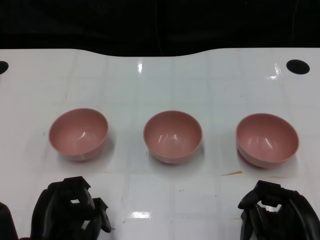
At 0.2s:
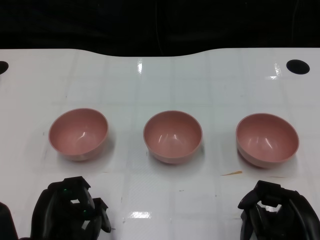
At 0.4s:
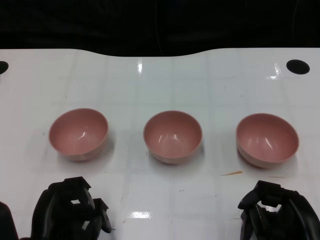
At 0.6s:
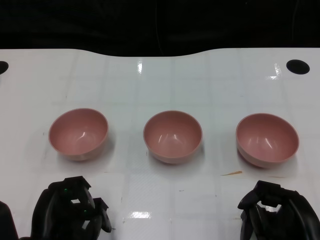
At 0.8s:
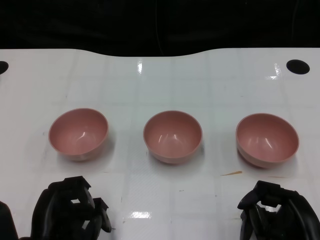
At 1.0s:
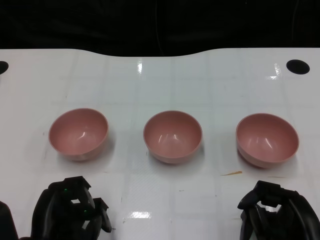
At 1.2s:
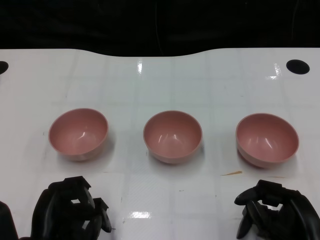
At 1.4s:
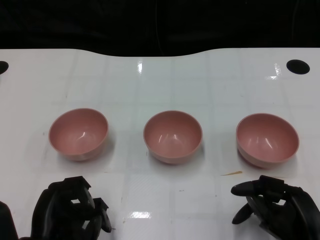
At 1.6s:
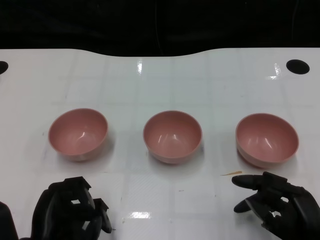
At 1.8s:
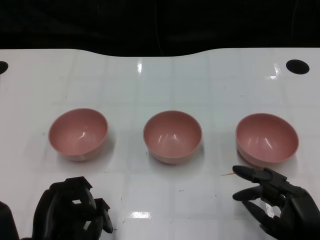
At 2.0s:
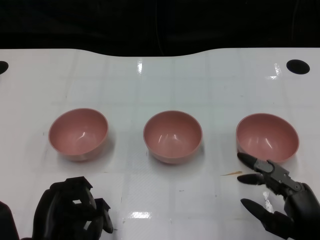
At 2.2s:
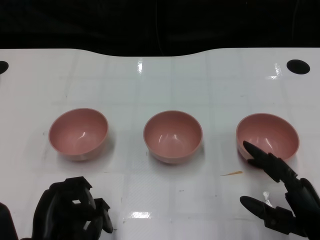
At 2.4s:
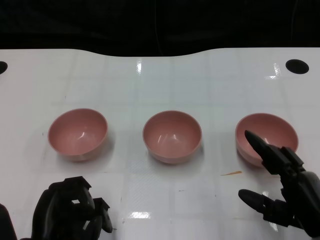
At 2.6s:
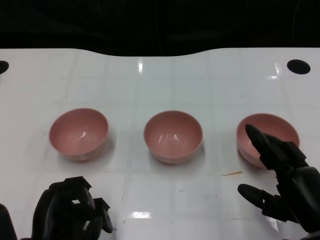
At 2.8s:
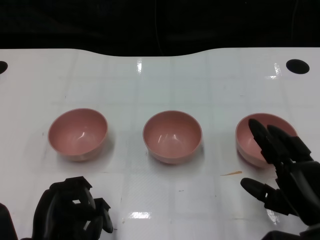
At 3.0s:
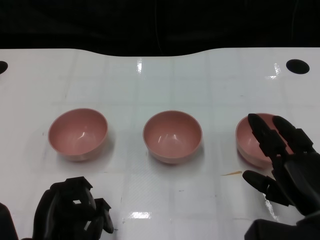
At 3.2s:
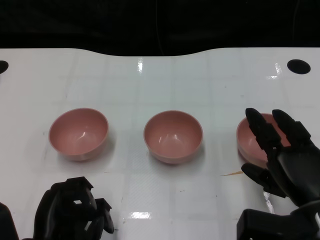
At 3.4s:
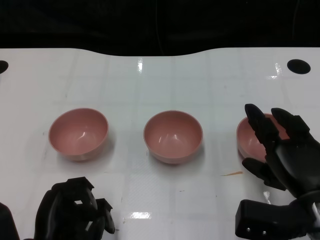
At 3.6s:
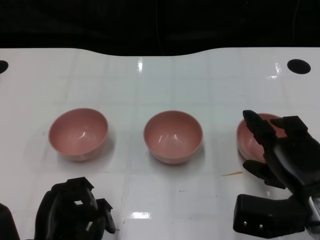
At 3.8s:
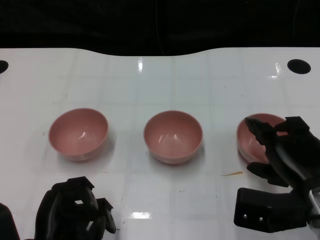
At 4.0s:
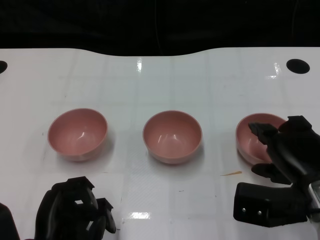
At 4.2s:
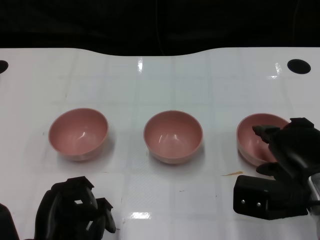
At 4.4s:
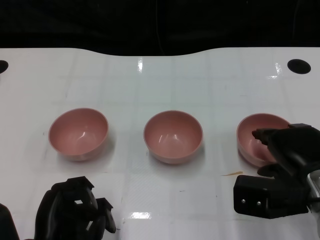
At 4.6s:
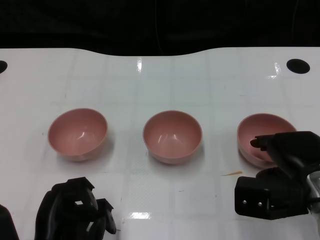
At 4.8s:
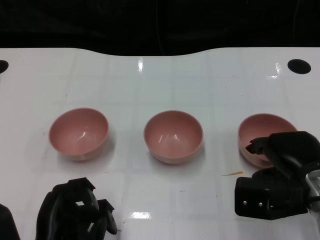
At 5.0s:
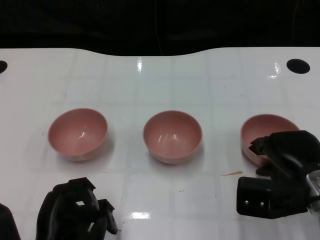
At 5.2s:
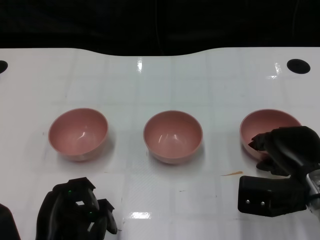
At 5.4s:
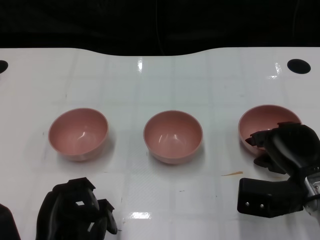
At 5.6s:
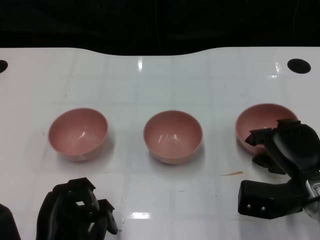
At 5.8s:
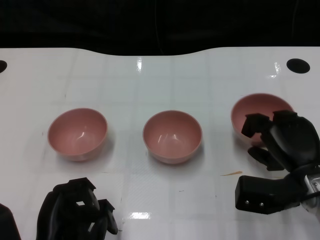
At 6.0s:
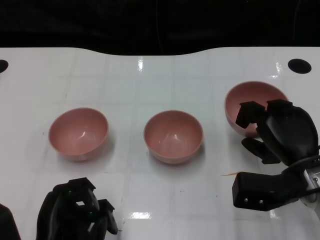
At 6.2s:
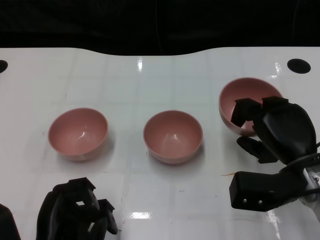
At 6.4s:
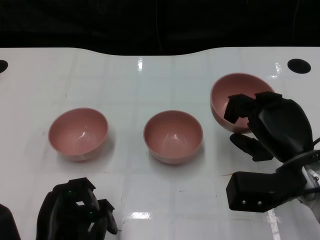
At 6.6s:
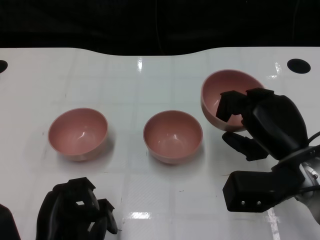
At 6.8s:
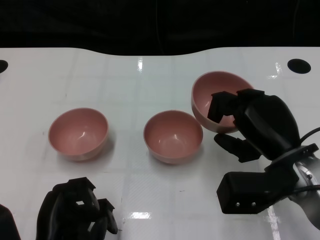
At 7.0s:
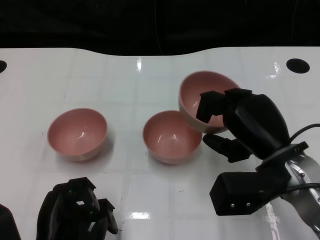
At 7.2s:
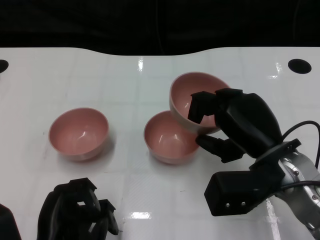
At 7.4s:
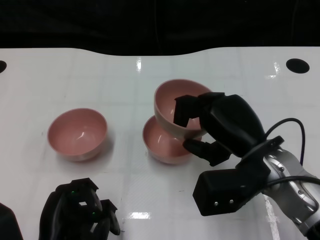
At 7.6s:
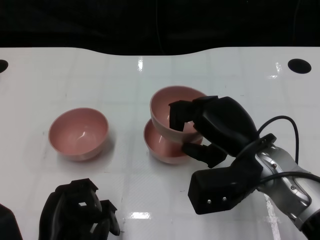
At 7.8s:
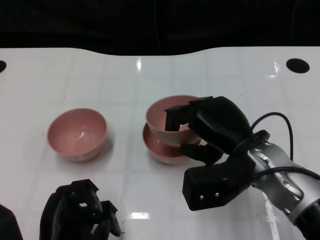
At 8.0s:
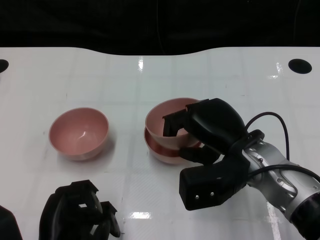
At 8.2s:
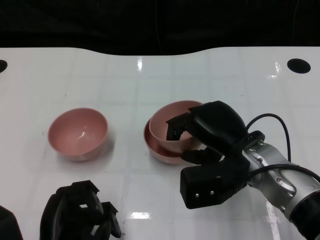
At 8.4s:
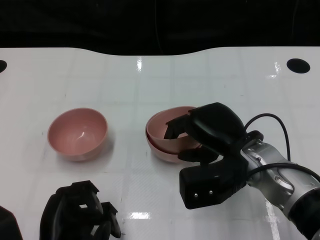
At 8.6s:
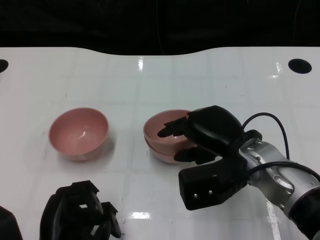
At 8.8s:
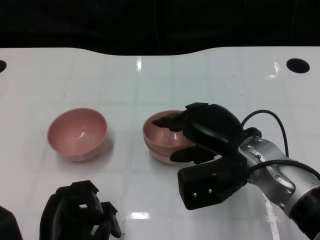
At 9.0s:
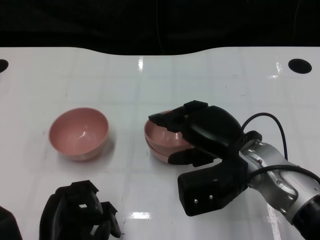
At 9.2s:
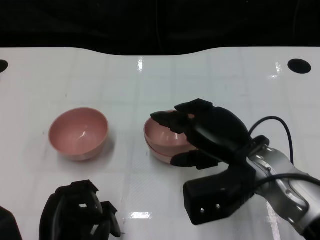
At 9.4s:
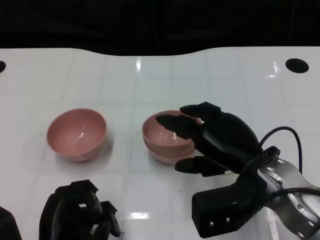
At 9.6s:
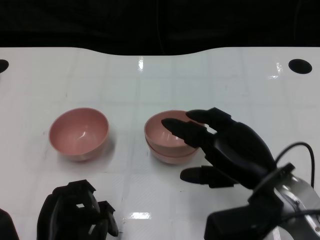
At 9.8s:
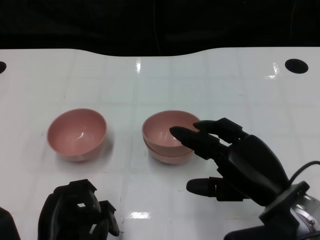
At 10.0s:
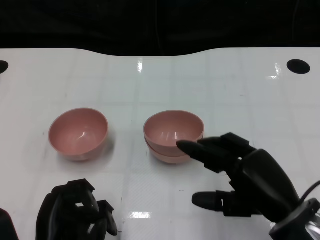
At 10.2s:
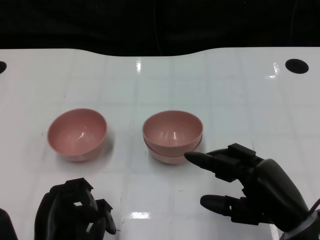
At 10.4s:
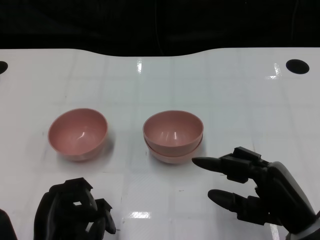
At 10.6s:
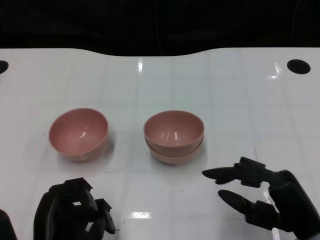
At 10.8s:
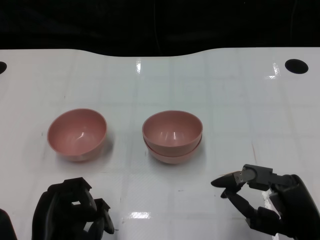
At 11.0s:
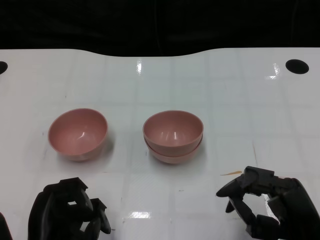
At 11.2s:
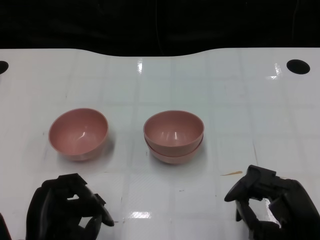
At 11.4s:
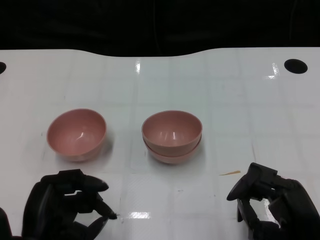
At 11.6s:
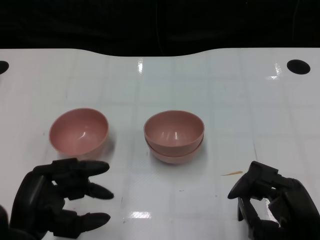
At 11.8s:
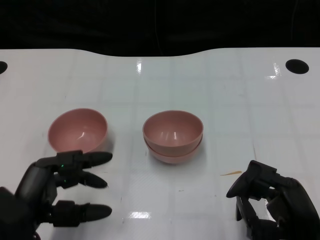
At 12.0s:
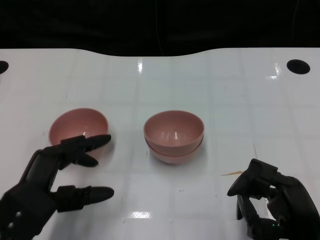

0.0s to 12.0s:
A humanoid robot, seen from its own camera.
Task of the whole recording: Pick up the bowl on one side of the table and place it on top of the middle bowl, then pick up the bowl on the other side of the table and place it on top of the middle bowls.
Step, 1.2s to 5.6s: Grasp the bowl on the right with the right gripper.
Step, 5.8s to 9.8s: Place the bowl on the right onto the bowl in the middle with right gripper.
1.6s to 3.0s: The right hand ends up some 5 cm from where it was.
3.0s to 4.4s: The right hand shifts by approximately 5 cm.
6.0s to 7.6s: The right hand shifts about 5 cm to the left.
7.6s to 9.0s: The hands move only a little.
9.0s to 10.4s: The right hand travels backward and to the right by approximately 15 cm.
10.4s to 12.0s: The left hand shifts by about 5 cm.

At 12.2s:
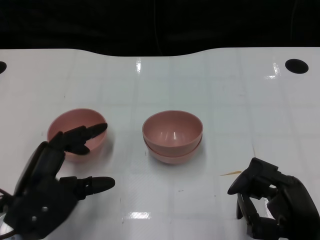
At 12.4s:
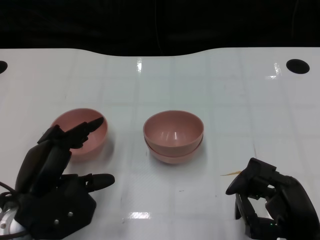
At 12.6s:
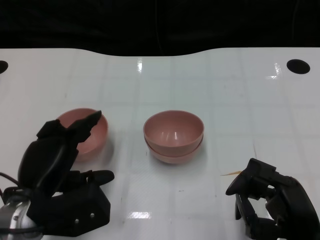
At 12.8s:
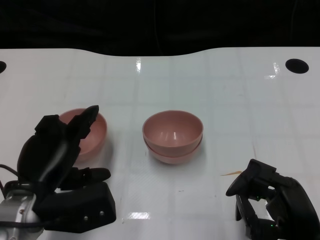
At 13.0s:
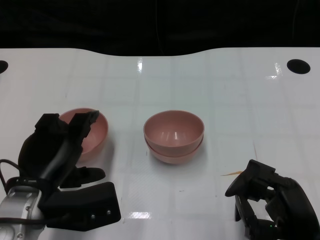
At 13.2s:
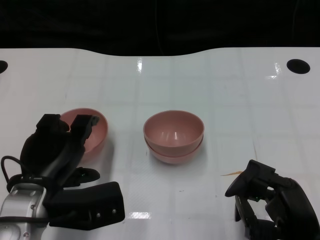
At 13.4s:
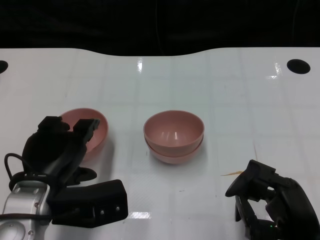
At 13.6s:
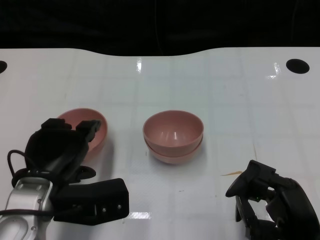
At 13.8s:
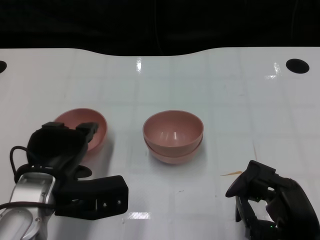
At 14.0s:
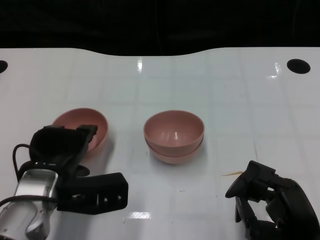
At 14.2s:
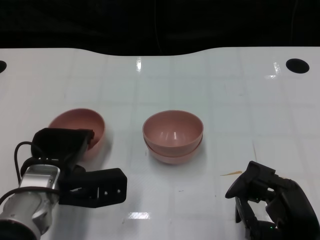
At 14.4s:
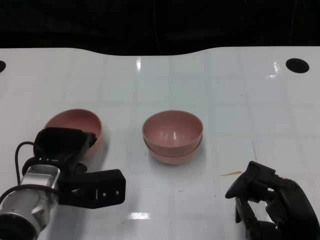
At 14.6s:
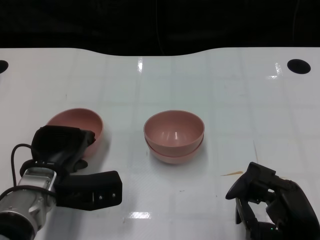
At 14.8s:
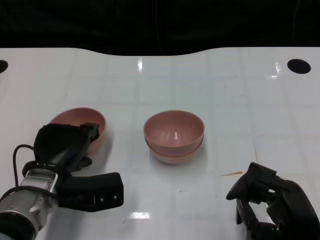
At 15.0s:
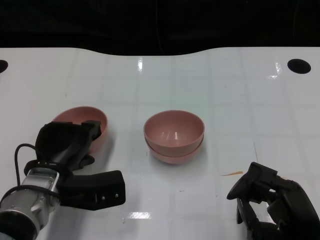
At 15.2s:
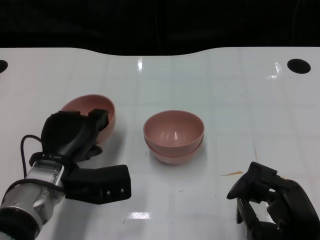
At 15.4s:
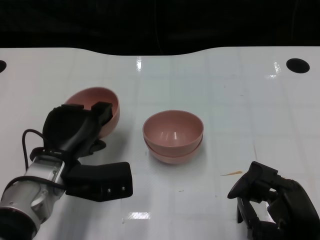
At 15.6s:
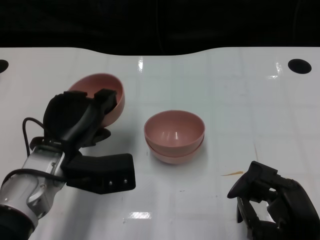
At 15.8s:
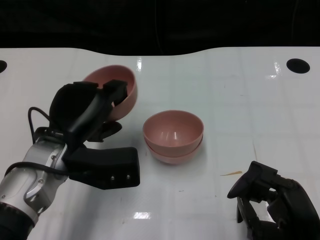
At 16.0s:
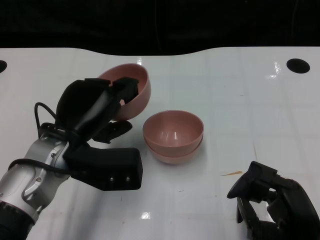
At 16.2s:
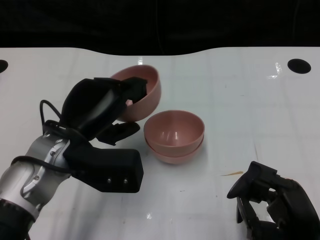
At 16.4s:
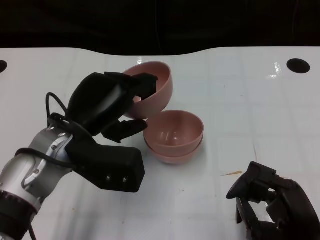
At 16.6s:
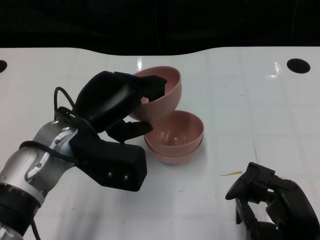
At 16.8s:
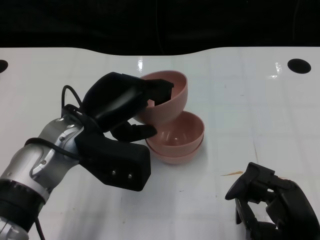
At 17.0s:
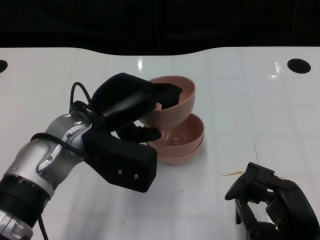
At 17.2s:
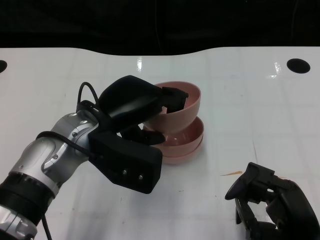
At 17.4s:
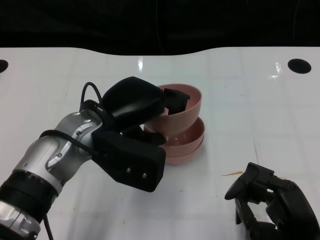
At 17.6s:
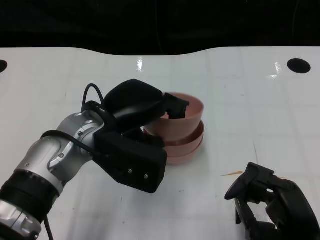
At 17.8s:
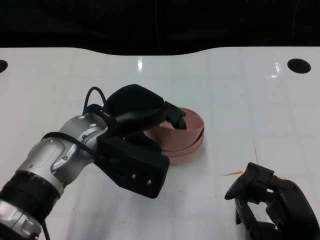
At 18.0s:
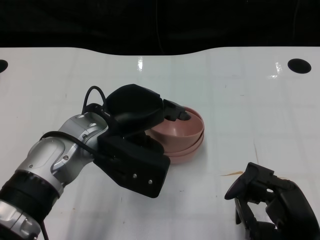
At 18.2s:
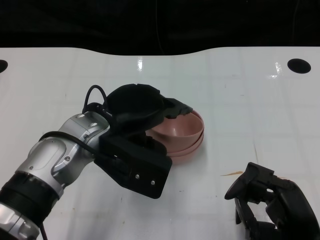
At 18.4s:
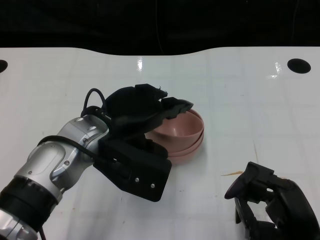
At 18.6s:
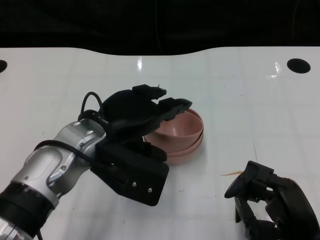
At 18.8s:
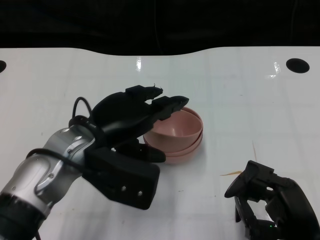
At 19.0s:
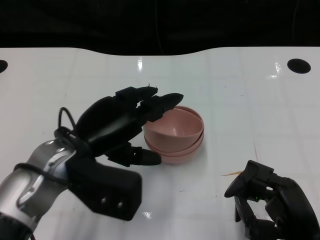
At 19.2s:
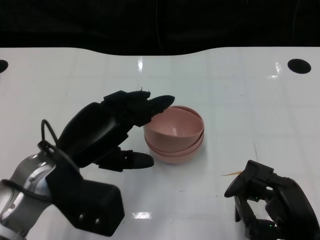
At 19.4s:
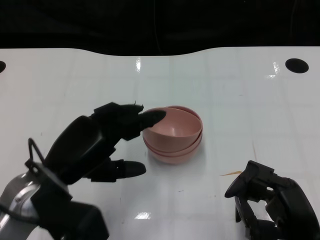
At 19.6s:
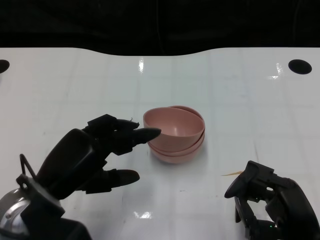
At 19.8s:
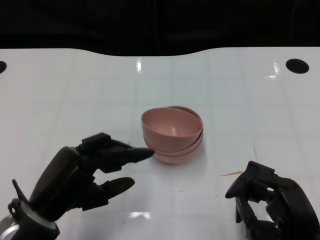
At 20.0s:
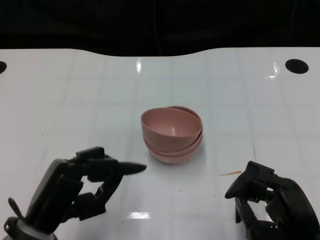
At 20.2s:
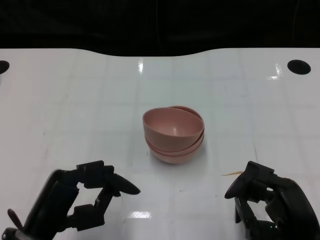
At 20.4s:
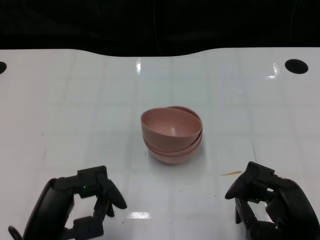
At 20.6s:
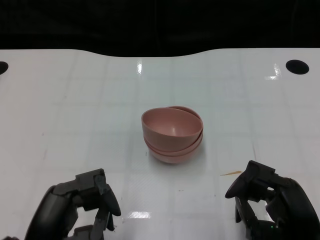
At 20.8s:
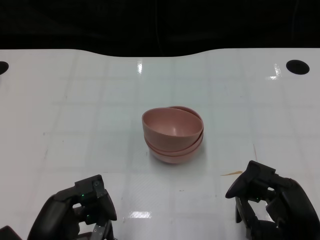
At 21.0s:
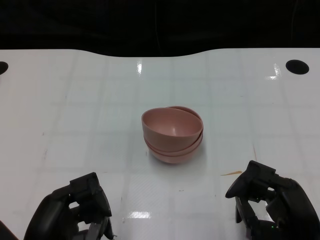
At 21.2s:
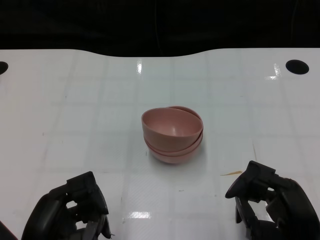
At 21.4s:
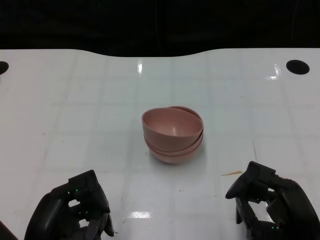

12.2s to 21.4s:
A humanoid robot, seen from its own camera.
Task of the whole recording: Pick up the bowl on one side of the table and place it on top of the middle bowl, then pick up the bowl on the other side of the table and place it on top of the middle bowls.
Step, 12.2s to 15.2s: Grasp the bowl on the left with the left gripper.
Step, 15.4s to 19.0s: Place the bowl on the left onto the bowl in the middle with left gripper.
12.2s to 13.8s: The left hand changes place by about 5 cm.
13.8s to 15.2s: The hands stay close to where they were, moving slightly.
15.2s to 16.8s: The left hand travels upward by about 10 cm.
18.4s to 19.8s: The left hand travels backward, to the left and downward by roughly 15 cm.
19.8s to 21.4s: The left hand moves backward, some 5 cm.

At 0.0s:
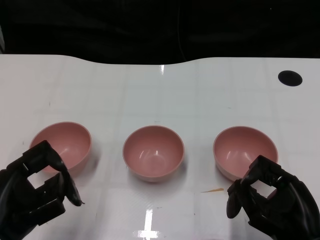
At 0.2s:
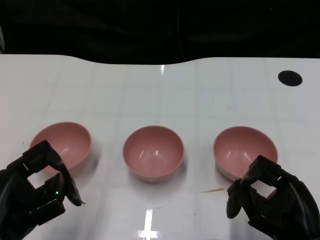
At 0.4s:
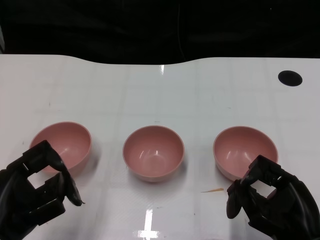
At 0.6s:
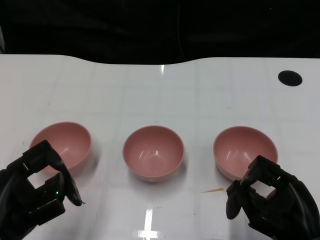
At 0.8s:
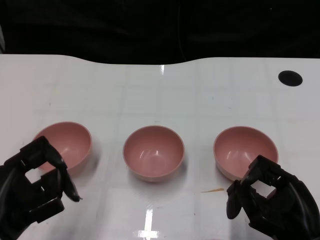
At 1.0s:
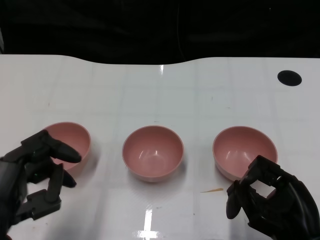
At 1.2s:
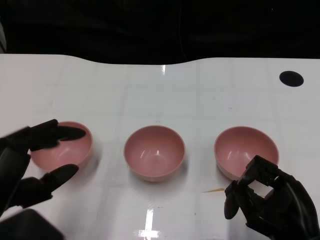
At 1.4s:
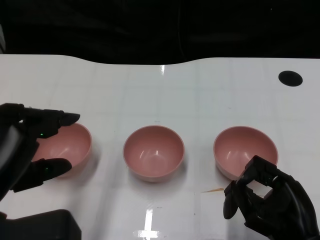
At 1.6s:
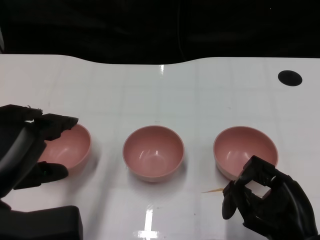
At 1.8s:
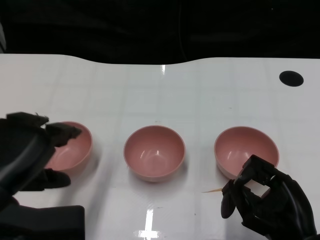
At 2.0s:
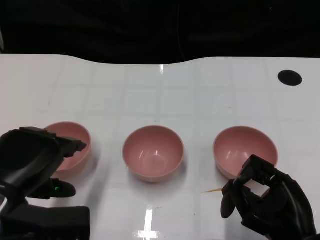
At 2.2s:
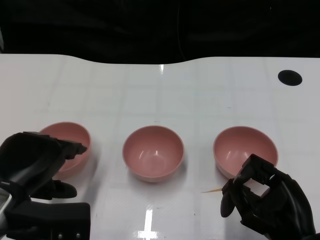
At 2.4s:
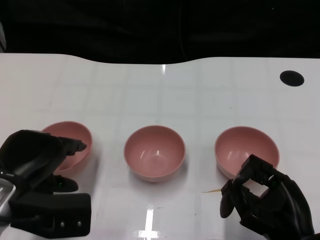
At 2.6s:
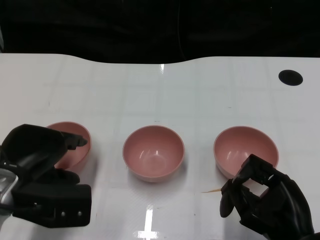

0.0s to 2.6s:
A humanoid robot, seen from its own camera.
Task of the whole recording: Pick up the bowl on one side of the table and place it on top of the middle bowl, then pick up the bowl on the other side of the table and place it on top of the middle bowls.
1.2s to 2.6s: The left hand is displaced forward and downward by approximately 10 cm.
